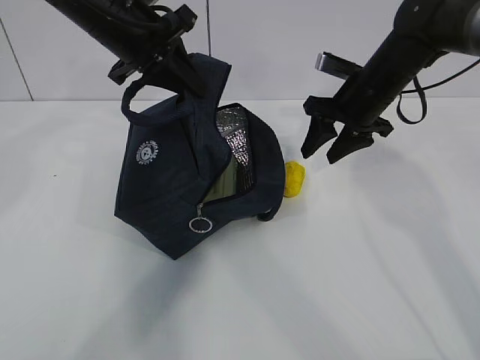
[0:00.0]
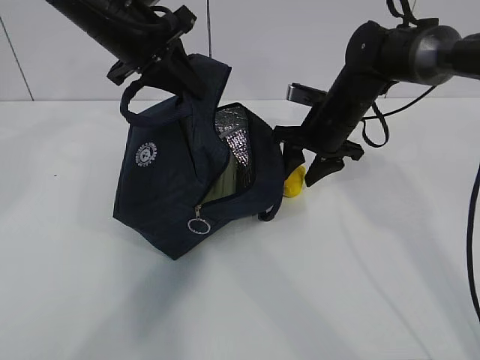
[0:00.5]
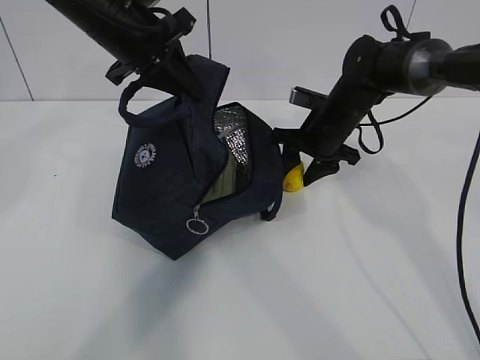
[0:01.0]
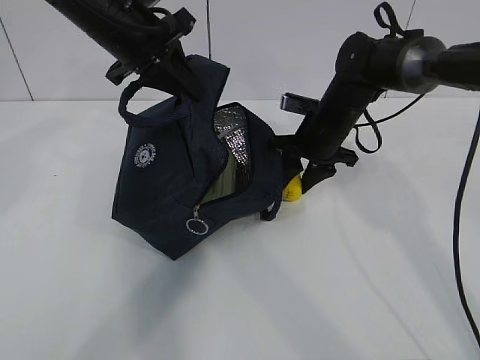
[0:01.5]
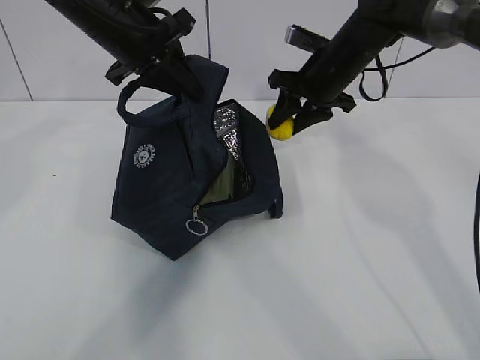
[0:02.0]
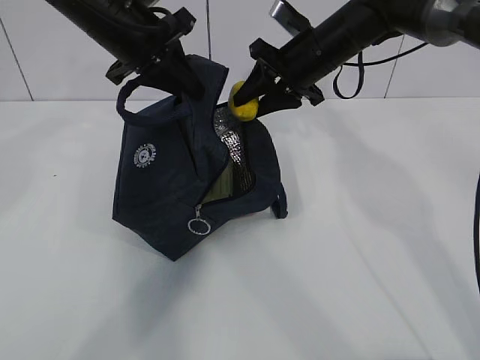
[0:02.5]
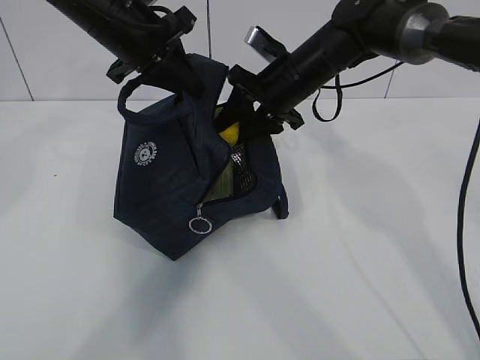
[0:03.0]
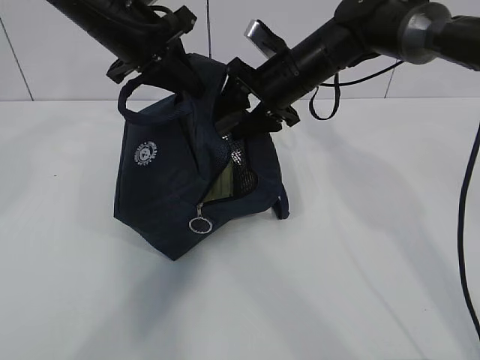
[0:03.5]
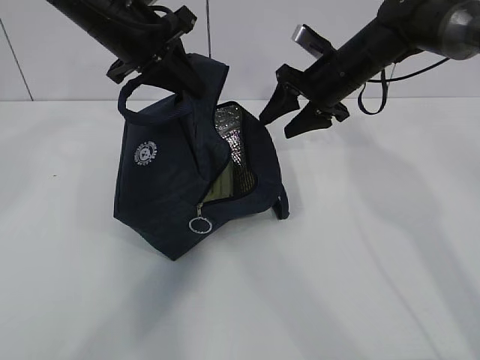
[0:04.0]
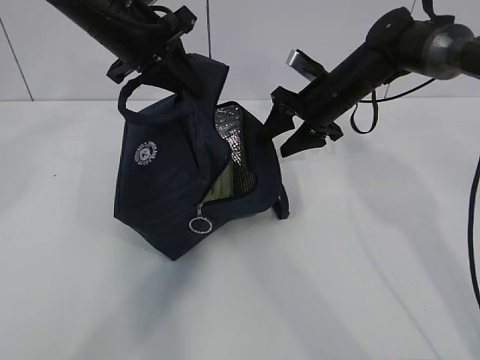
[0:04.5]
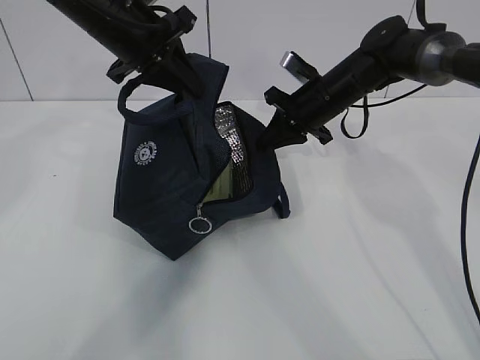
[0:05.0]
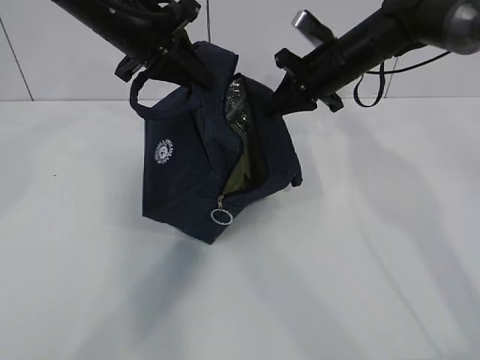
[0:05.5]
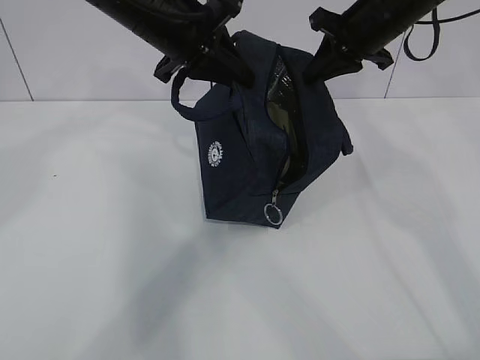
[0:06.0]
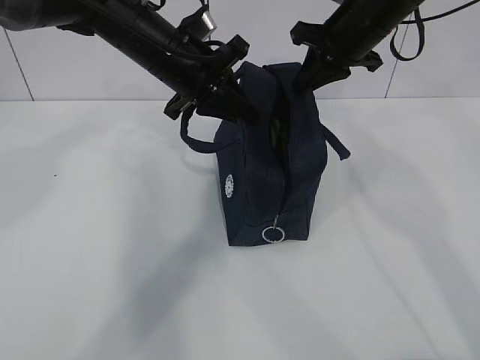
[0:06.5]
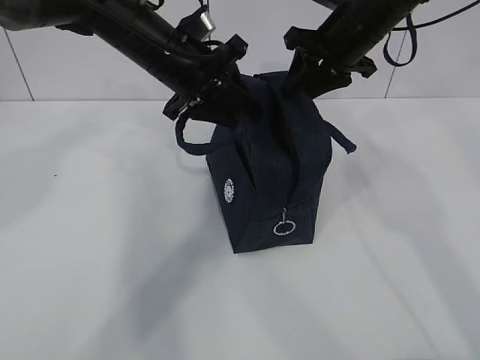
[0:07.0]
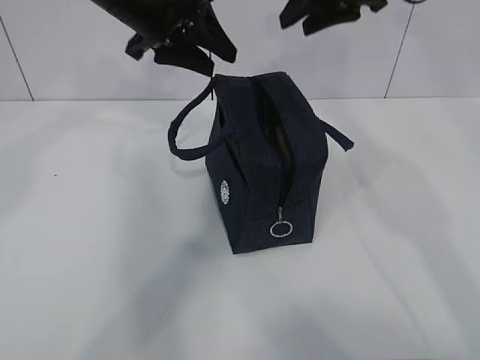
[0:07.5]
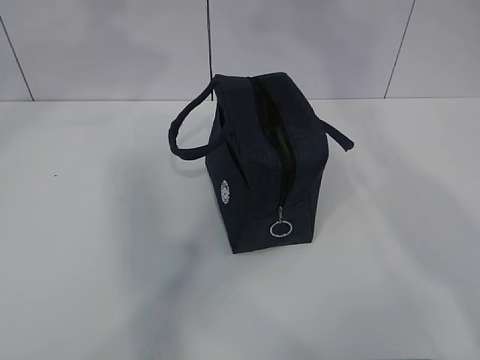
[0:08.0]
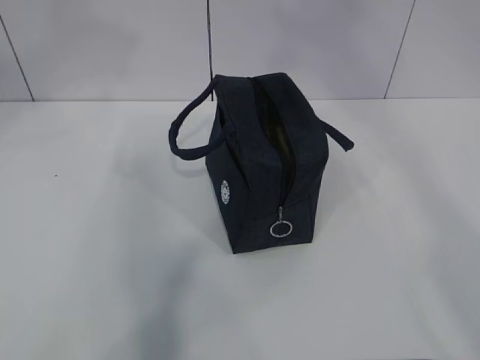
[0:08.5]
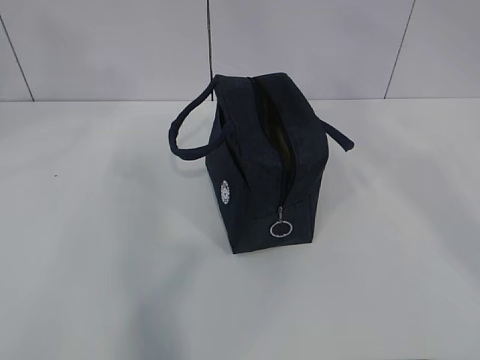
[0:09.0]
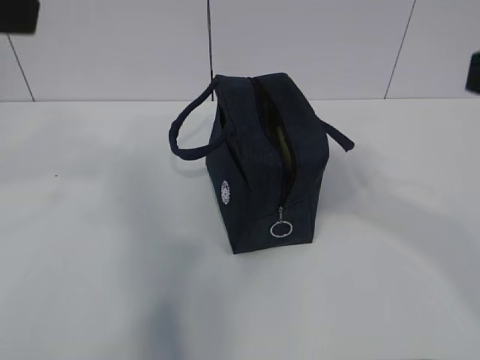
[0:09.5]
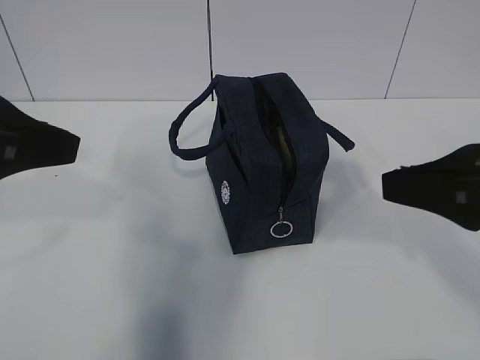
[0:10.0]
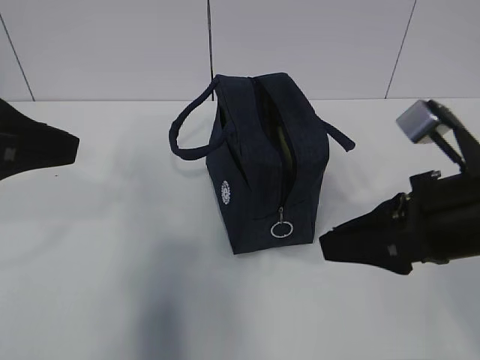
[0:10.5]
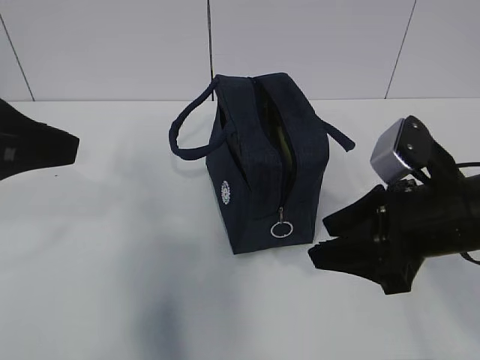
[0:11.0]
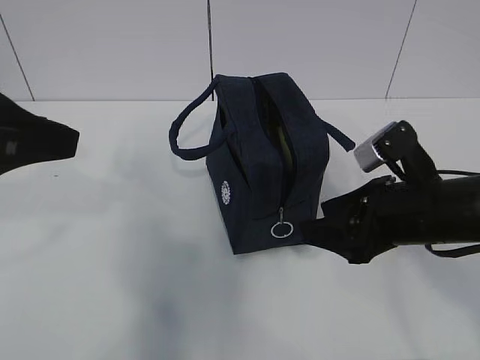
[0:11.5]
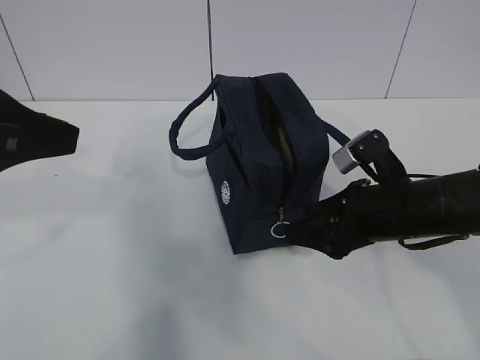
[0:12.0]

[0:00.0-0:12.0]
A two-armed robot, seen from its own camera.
Step, 0:00.0 to 0:01.0: Move the lunch bag to the right.
0:00.0 to 0:02.0: The right gripper goes downward and returns, roughly 5 cm each way.
0:04.0 to 0:06.0: The right gripper goes about 10 cm upward, and closes its fingers. Meanwhile the left gripper shifts by roughly 5 cm.
0:06.0 to 0:08.0: The right gripper goes about 30 cm upward and backward, and opens. Meanwhile the left gripper moves upward and to the left, roughly 15 cm, and opens its fingers.
0:08.0 to 0:10.0: The left gripper moves backward and downward, about 20 cm, while the right gripper shifts approximately 30 cm downward and backward.
0:10.0 to 0:12.0: The right gripper travels downward and forward by about 20 cm.

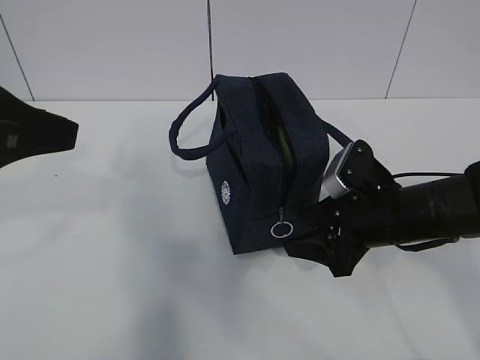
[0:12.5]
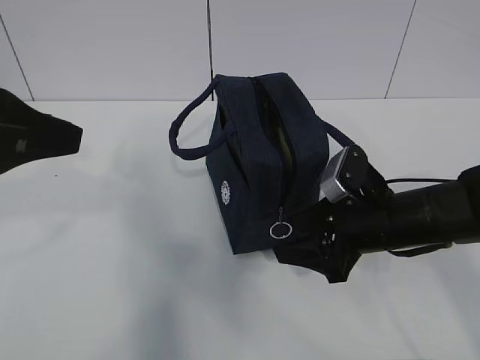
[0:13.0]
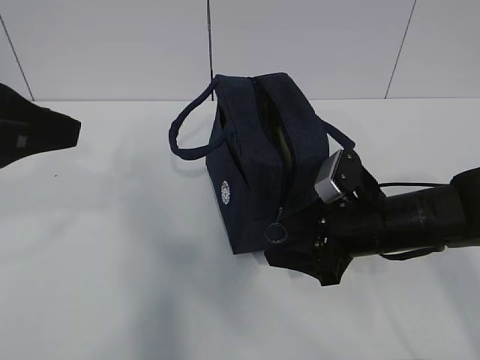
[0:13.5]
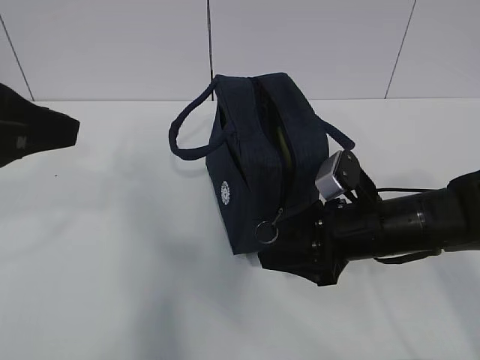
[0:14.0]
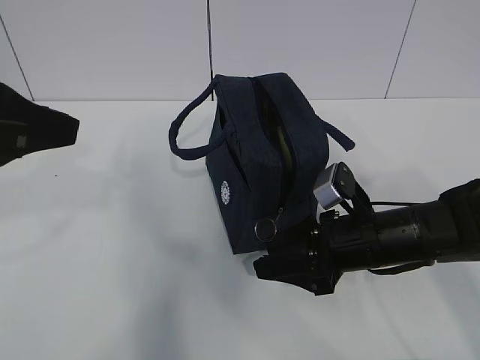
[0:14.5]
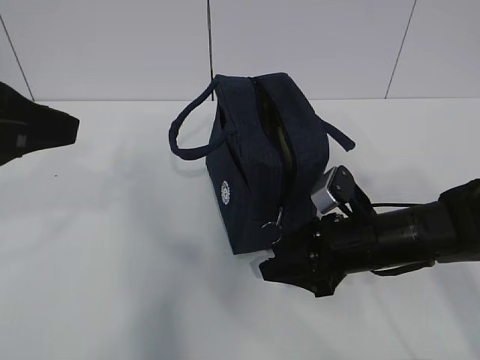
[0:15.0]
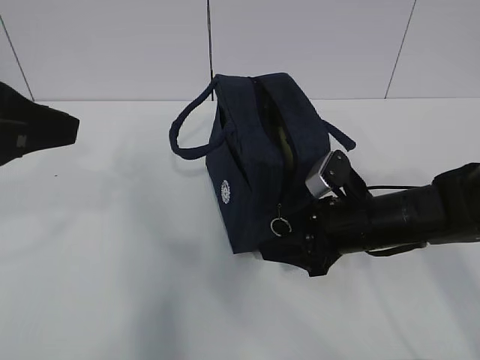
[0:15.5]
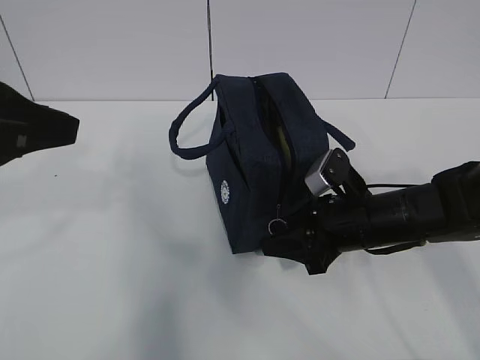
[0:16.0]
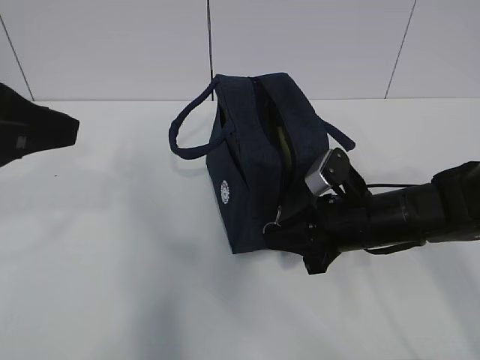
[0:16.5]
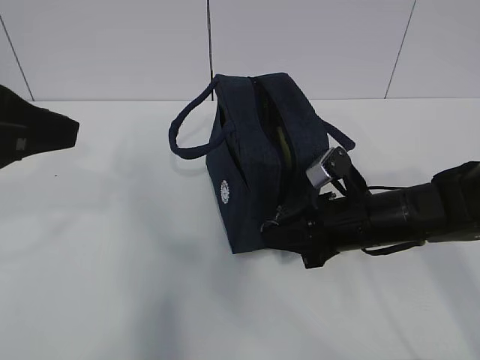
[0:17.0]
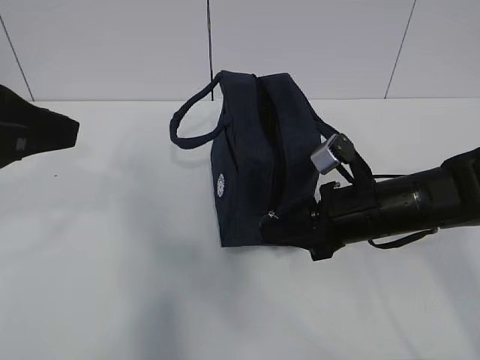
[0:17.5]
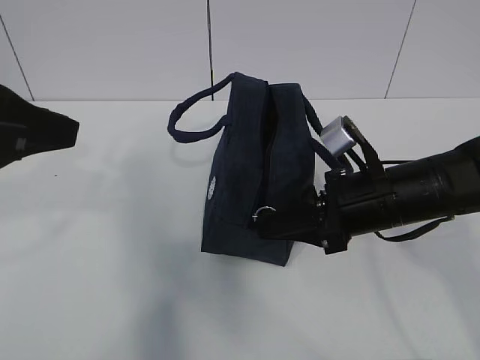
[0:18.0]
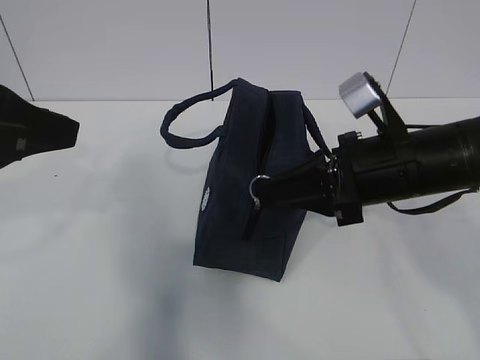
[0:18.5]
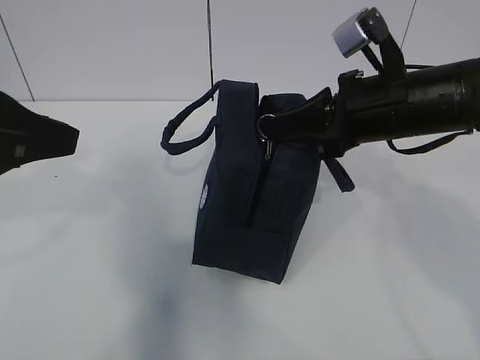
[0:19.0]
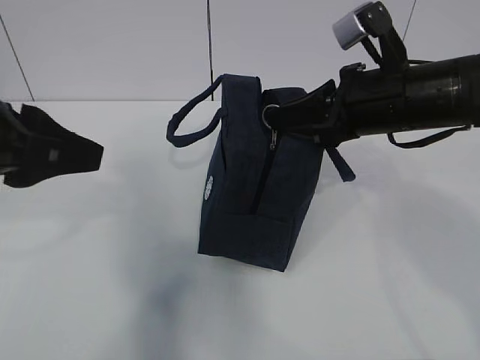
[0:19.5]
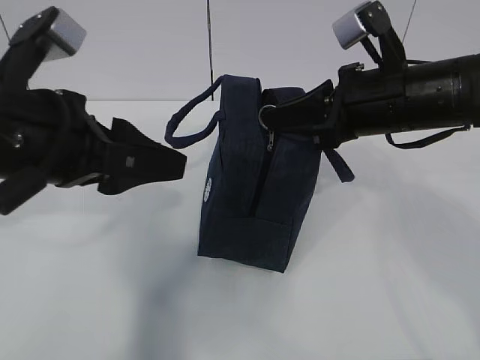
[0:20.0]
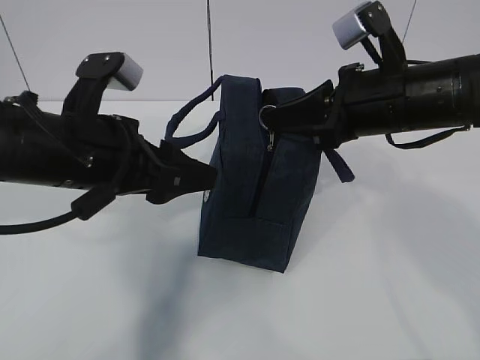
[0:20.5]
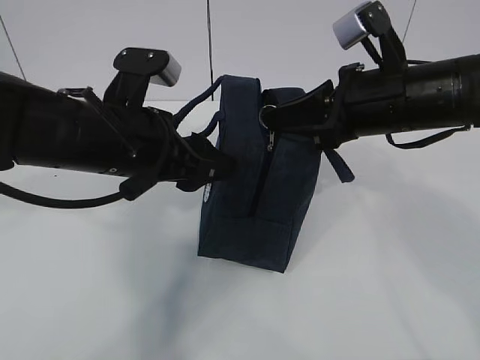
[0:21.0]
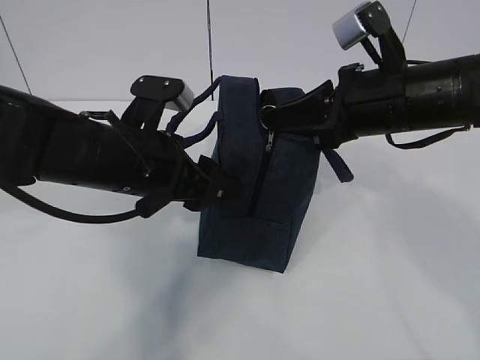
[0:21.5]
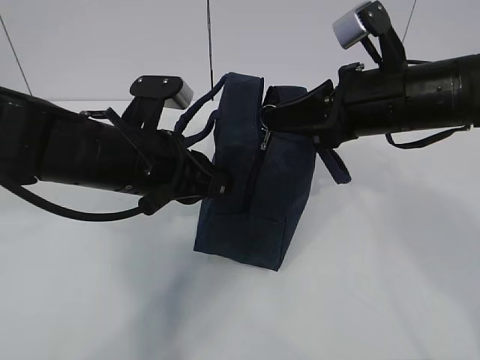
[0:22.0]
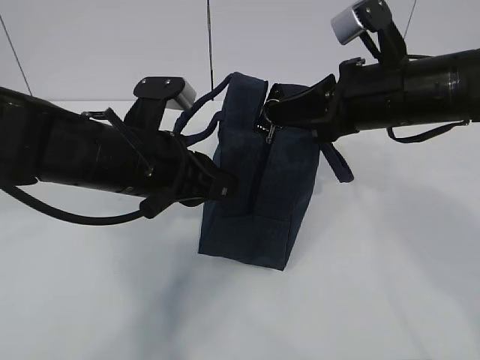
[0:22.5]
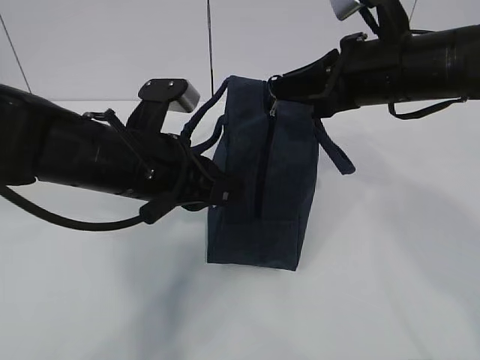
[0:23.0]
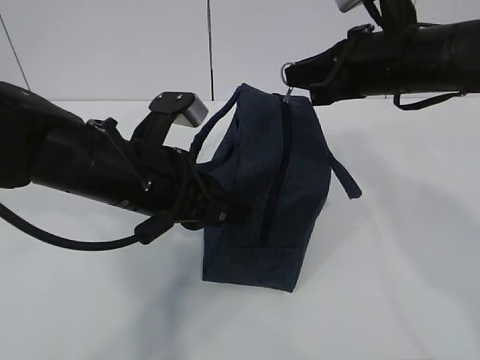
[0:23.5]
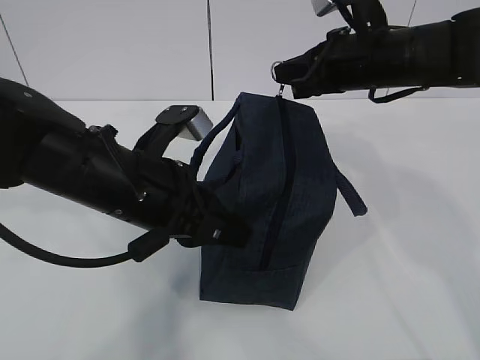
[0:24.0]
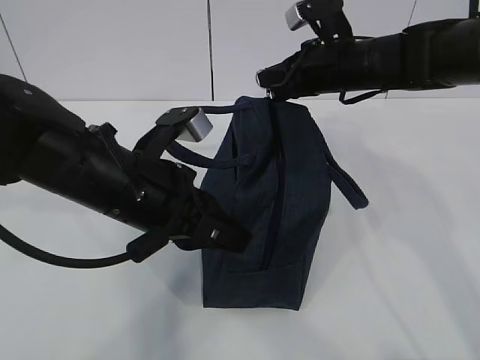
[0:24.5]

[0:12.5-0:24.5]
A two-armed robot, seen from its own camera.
Step, 0:16.0 to 0:20.0: Pull the zipper with your right hand.
Step, 0:20.5 to 0:21.0: Grab the lunch bag with your left hand.
0:12.5 to 0:14.5: There are only small adjustments of the grippers.
0:14.5 to 0:16.5: The right gripper closes.
0:16.5 to 0:18.5: The right gripper shifts roughly 10 cm upward.
0:18.5 to 0:20.5: The left gripper travels downward, to the right and forward by roughly 15 cm, and opens its fingers; the right gripper changes place by roughly 5 cm.
0:20.5 to 0:22.5: The left gripper moves about 5 cm, and closes up.
0:22.5 to 0:24.5: The right gripper travels forward by approximately 10 cm.

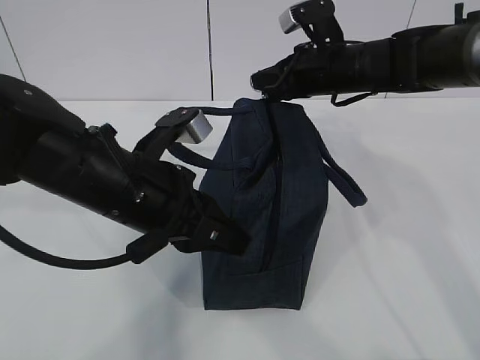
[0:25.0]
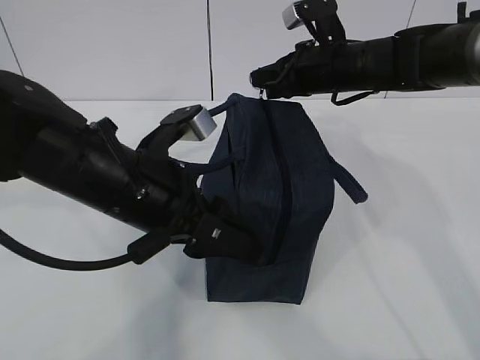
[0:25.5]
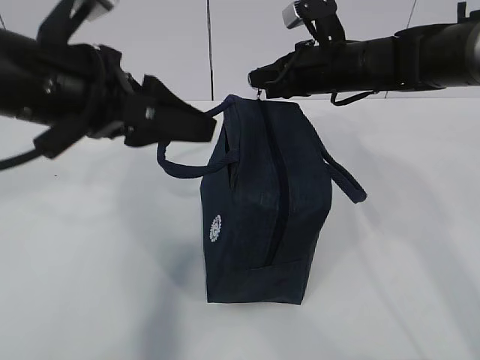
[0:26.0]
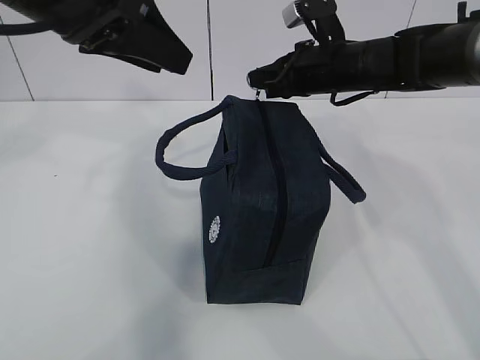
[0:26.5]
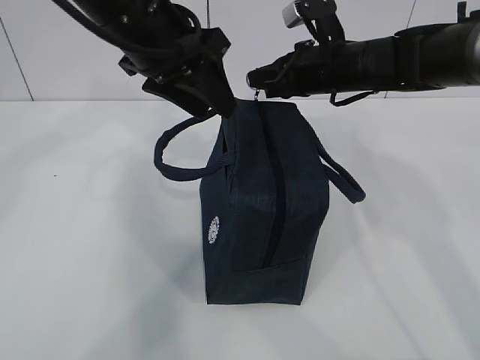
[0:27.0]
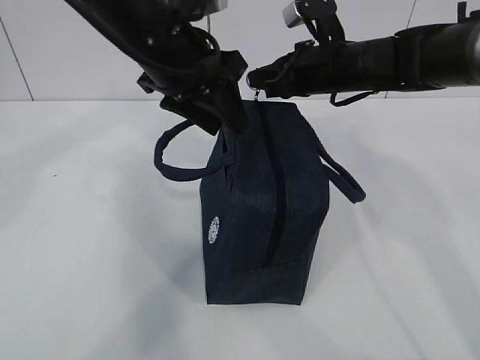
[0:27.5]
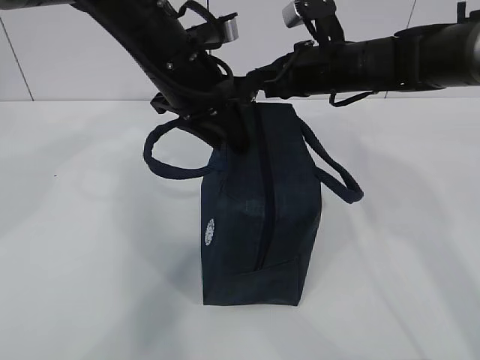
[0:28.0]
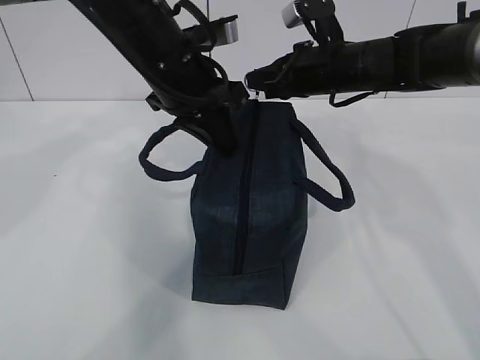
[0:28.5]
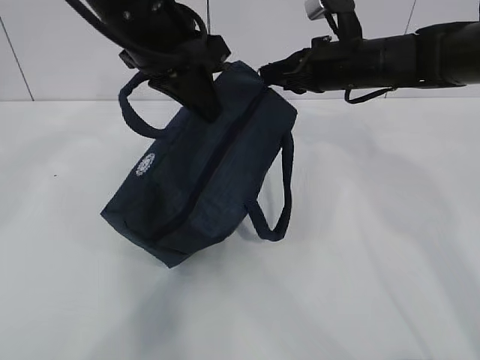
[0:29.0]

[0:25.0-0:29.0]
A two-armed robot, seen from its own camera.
0:25.0 to 0:27.0: The left gripper travels upward and forward by some 15 cm, and opens.
0:27.0 to 0:29.0: The left gripper closes.
